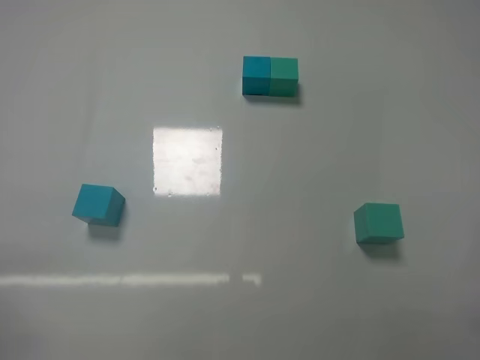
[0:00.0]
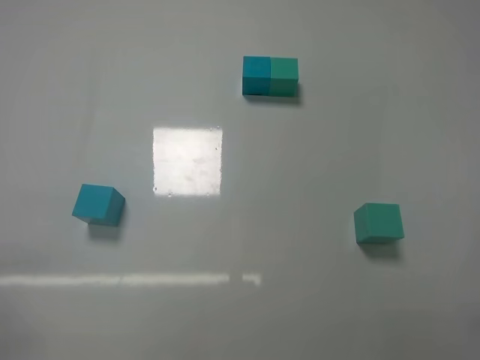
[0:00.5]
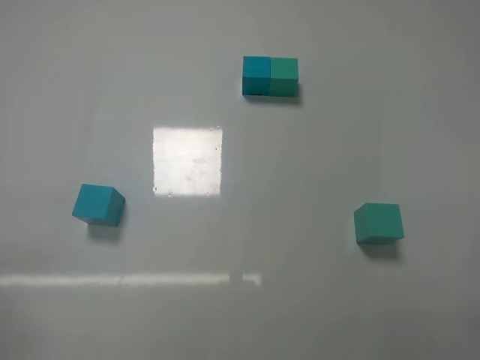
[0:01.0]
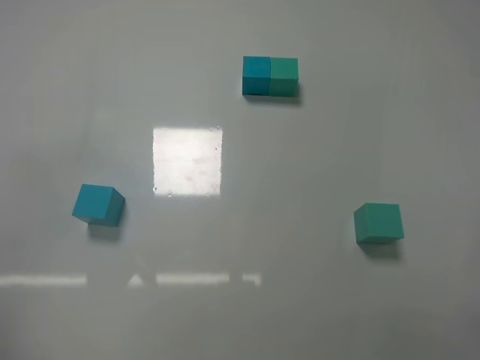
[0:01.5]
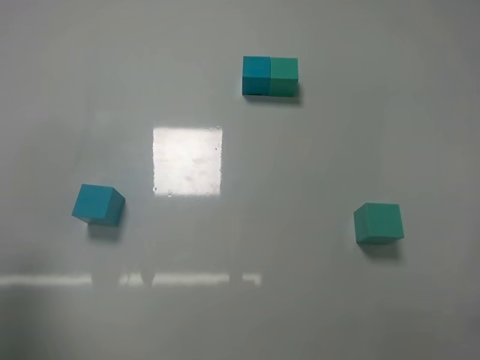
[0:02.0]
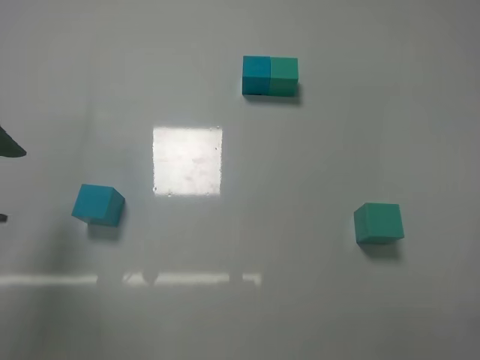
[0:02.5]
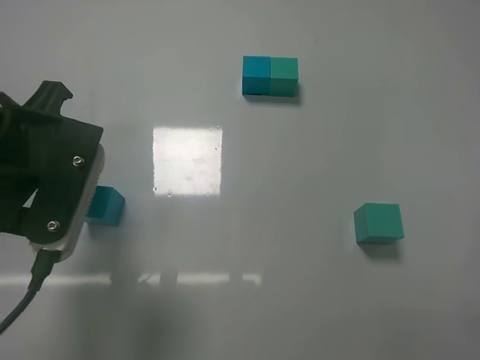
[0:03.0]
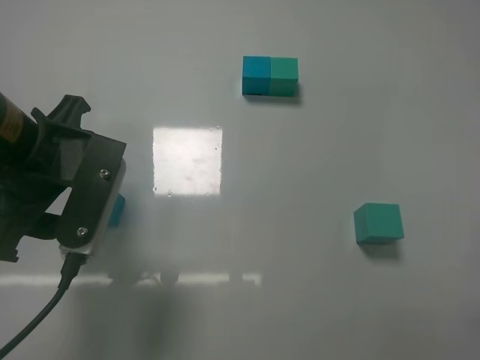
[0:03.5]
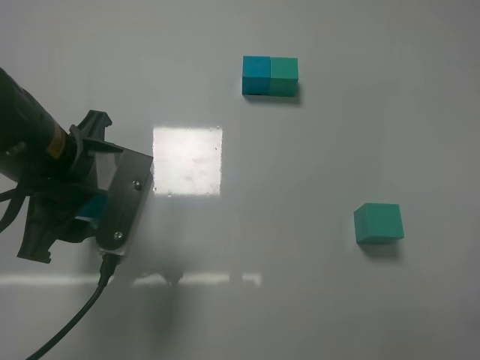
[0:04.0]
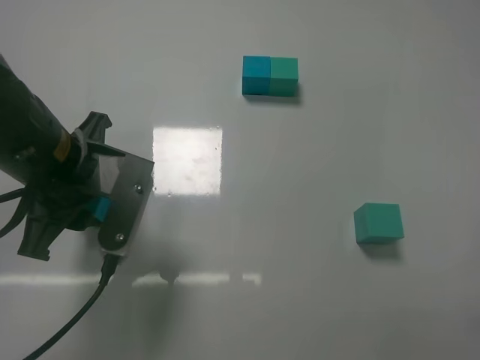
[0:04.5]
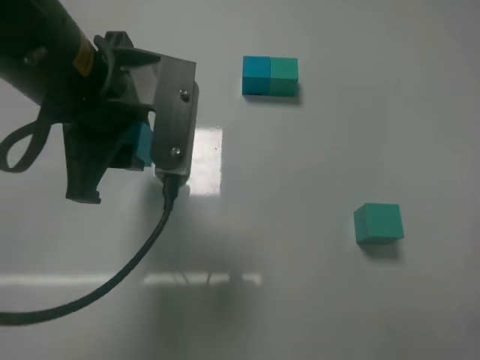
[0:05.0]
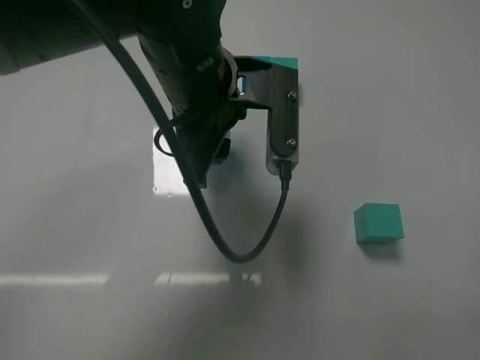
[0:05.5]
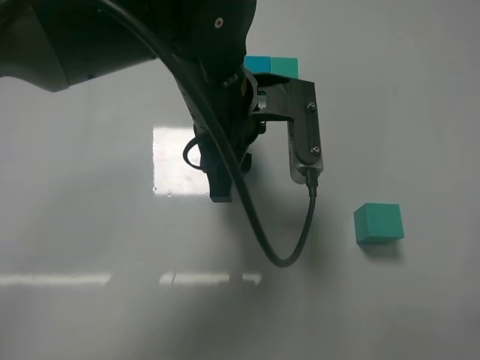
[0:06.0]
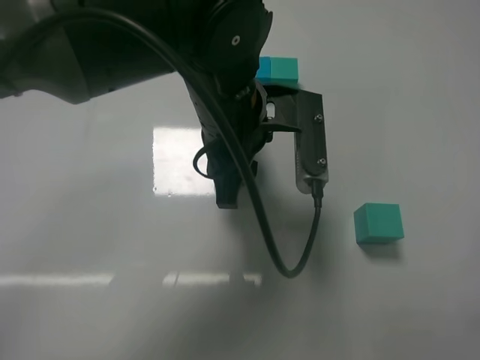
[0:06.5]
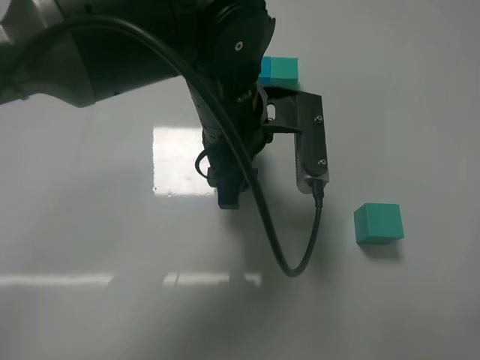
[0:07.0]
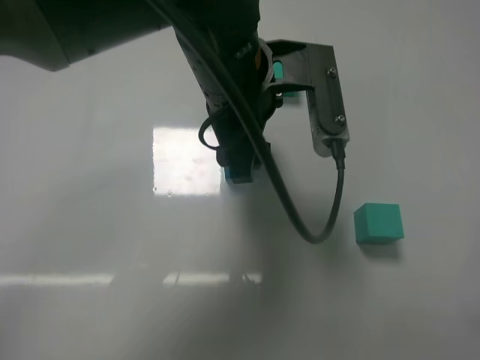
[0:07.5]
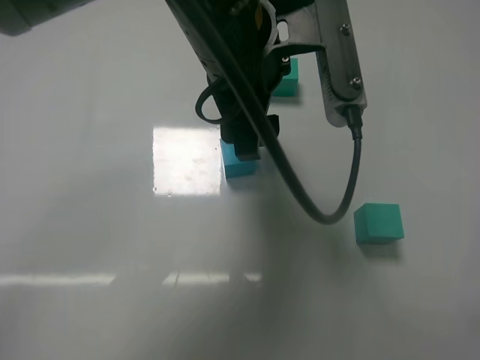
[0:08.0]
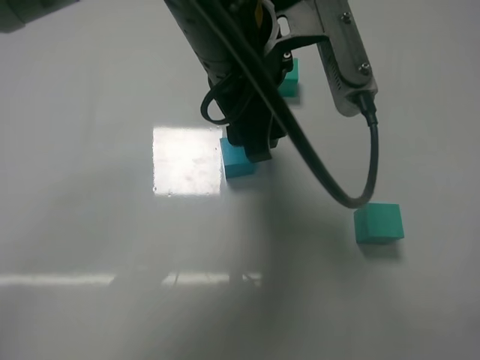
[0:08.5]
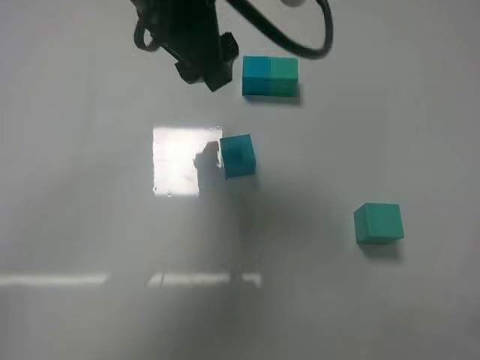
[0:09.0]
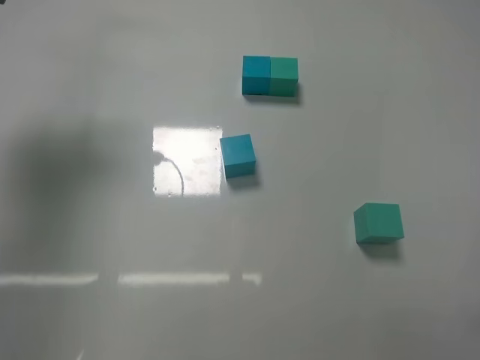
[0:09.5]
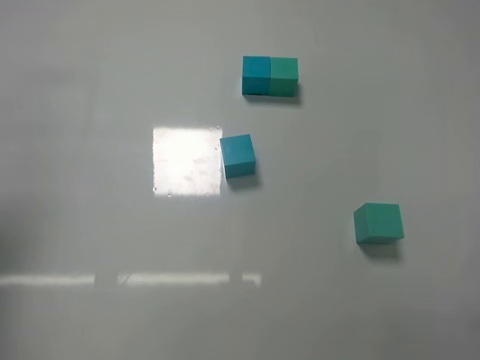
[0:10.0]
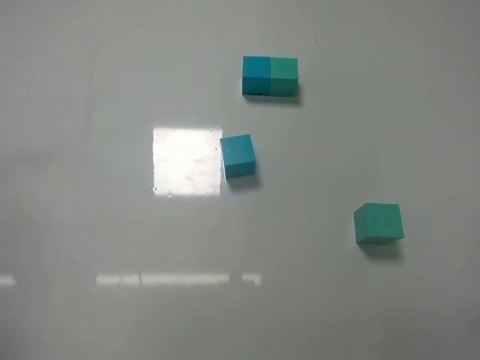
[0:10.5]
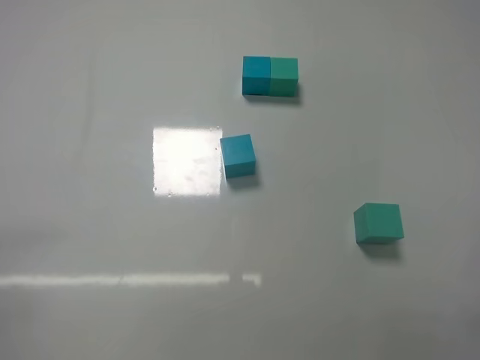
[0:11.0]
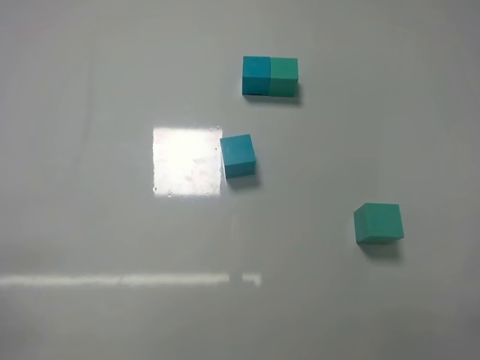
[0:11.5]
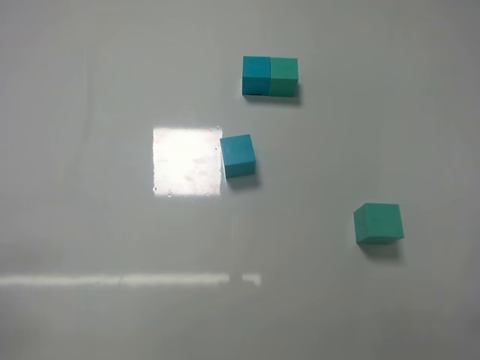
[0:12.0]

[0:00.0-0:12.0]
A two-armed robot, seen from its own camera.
Task of the whole recording: According to the building block template in front, assemble the scattered blocks together.
Step, 0:00.0 to 0:04.0: Grasp the blue block with left gripper.
Step, 0:04.5 to 0:07.0: Adjust the position of the cube with the left gripper.
0:00.0 to 0:02.0: The left gripper goes about 20 cm upward and forward.
0:02.0 to 0:04.0: The left gripper heads to the right, forward and downward, covering approximately 20 cm.
0:04.0 to 0:06.0: The left gripper travels to the right by roughly 15 cm, and closes its fingers.
0:06.0 to 0:08.0: The left gripper heads upward, covering about 5 cm, and opens up.
0:08.0 to 0:10.0: The left gripper goes approximately 35 cm to the left, and closes up.
0:10.0 to 0:12.0: The left gripper moves downward and backward, some 25 cm.

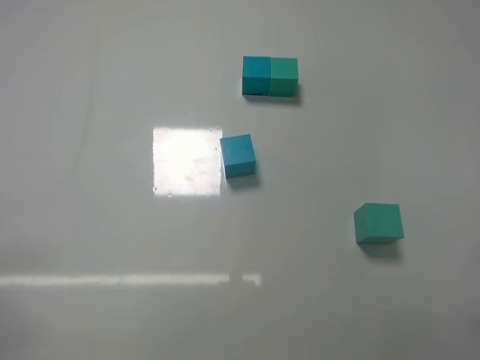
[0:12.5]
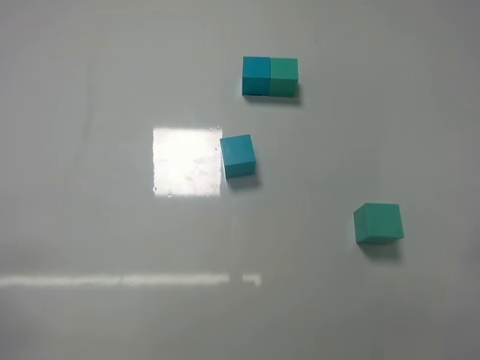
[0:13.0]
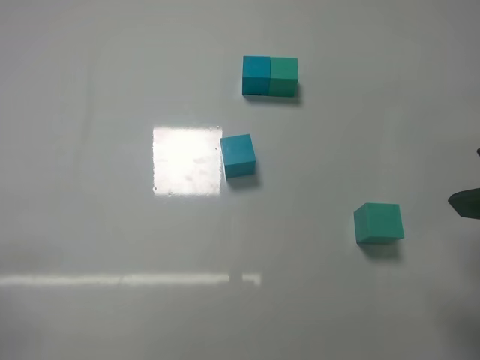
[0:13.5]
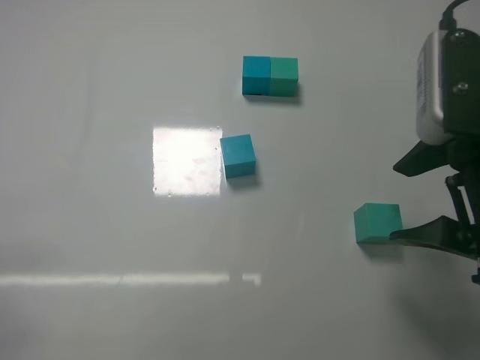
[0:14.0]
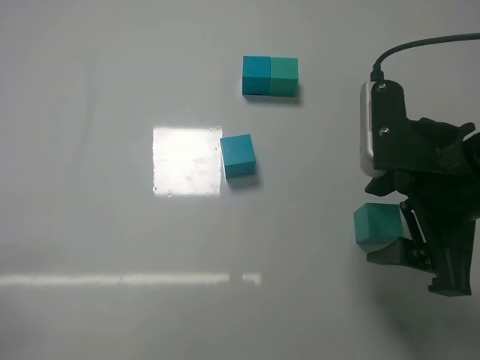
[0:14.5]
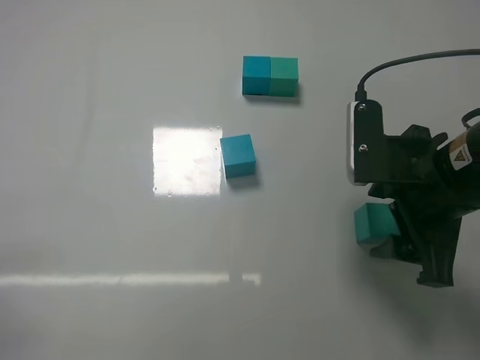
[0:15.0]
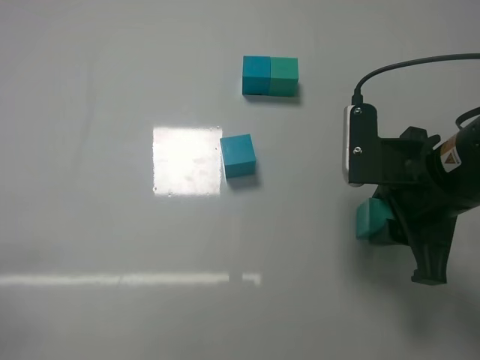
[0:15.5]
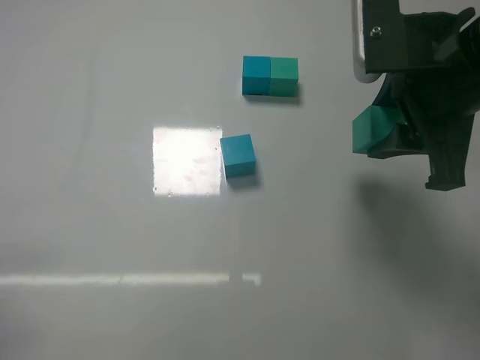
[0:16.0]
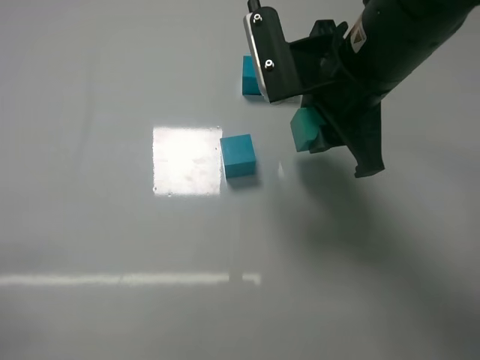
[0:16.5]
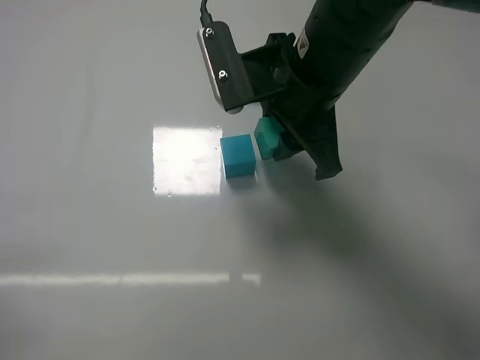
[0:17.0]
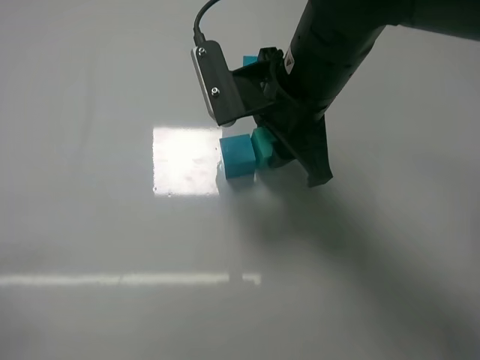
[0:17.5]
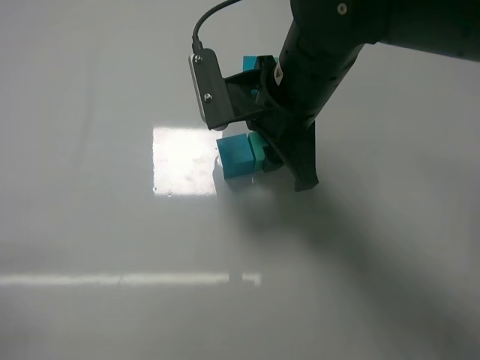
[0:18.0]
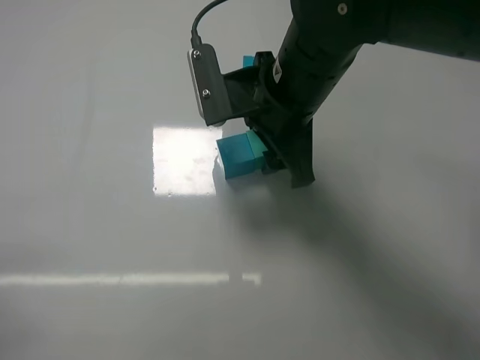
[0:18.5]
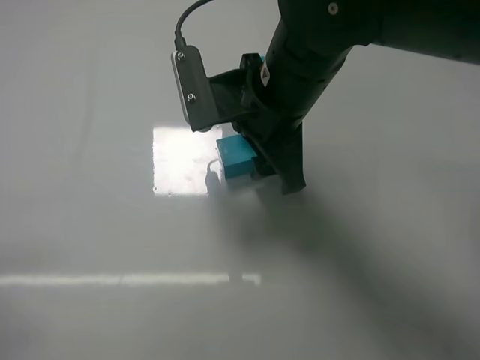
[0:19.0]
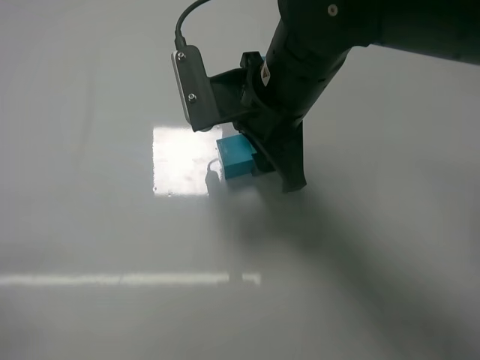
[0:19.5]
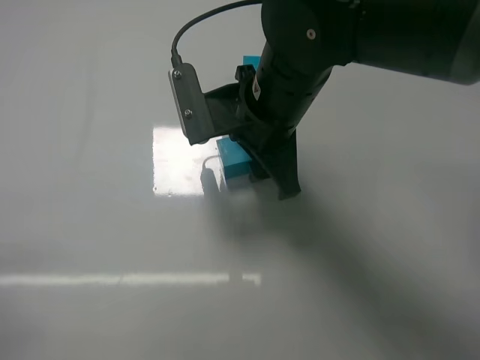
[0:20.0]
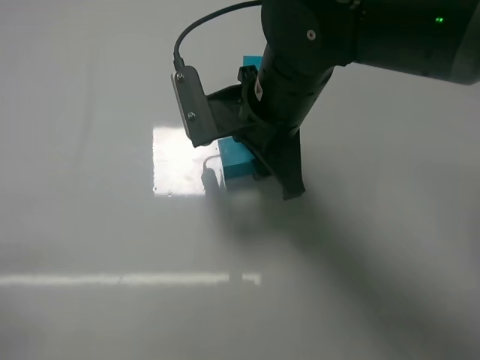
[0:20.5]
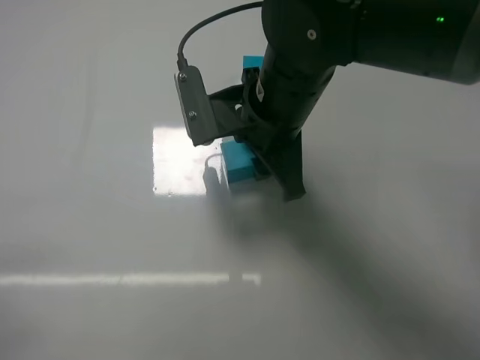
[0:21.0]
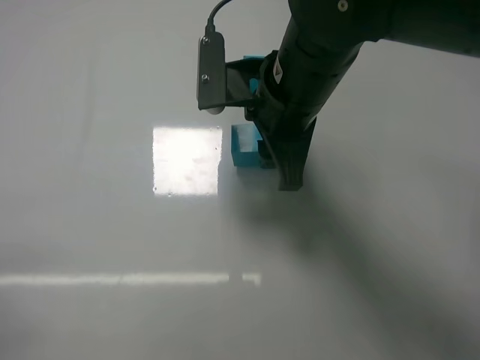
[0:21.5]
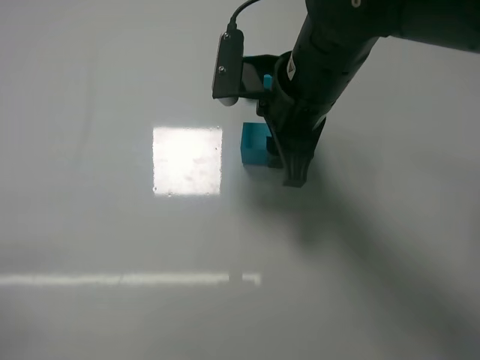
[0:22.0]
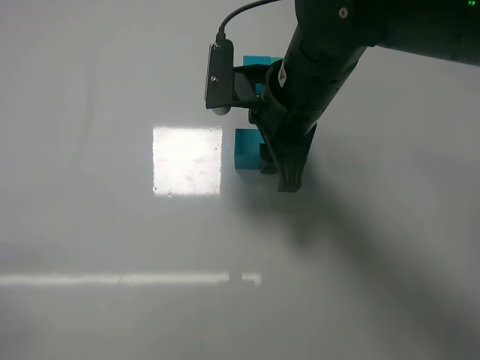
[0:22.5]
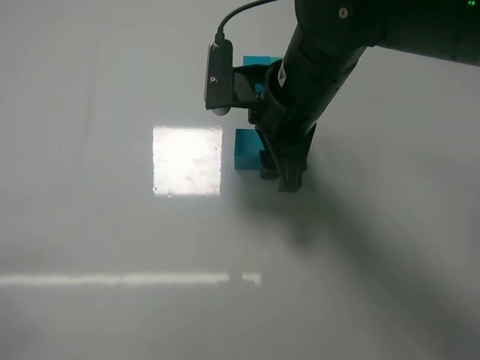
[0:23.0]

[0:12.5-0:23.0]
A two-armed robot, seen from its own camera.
Task of the whole recording: According to the building block template in front, assemble the scattered blocks together.
Step, 0:12.5 to 0:15.0: Grasp the green block with right gripper.
Step, 0:15.5 to 0:18.5: Put the green cube on the right of the blue cube with the right gripper.
0:12.5 to 0:14.5: The right gripper heads forward and to the left, covering approximately 25 cm, and opens up.
0:14.5 to 0:16.5: The right gripper shifts about 15 cm to the left, upward and forward, and closes its fingers.
0:16.5 to 0:19.0: The right gripper travels to the left by roughly 5 cm, and opens its fingers.
0:19.0 to 0:21.0: The right gripper closes up.
0:21.0 to 0:23.0: The right gripper opens up.

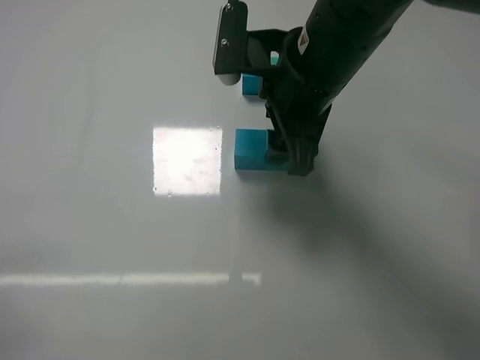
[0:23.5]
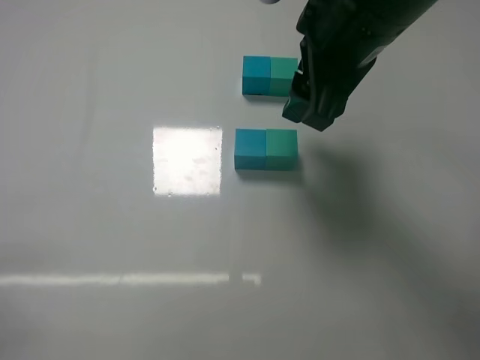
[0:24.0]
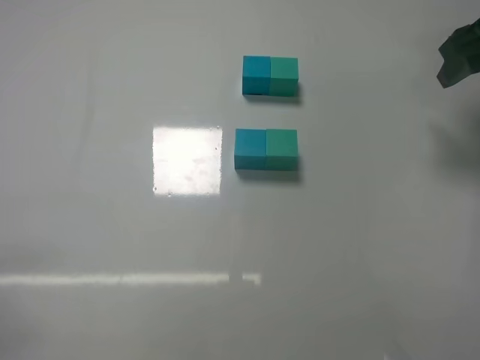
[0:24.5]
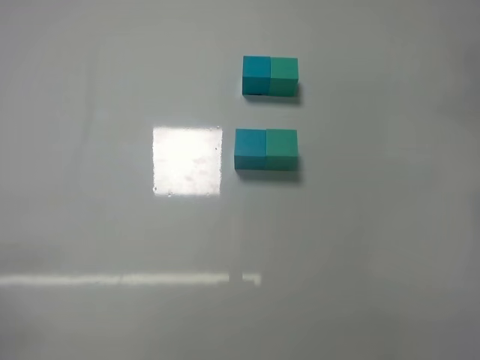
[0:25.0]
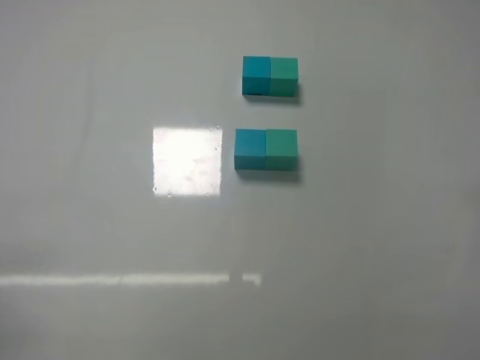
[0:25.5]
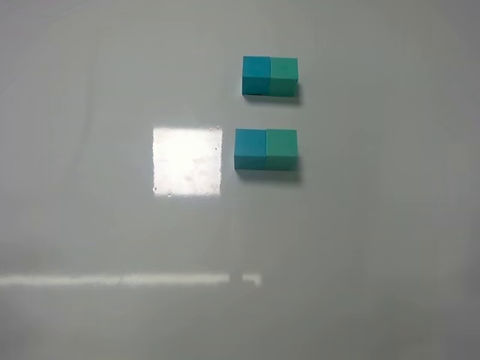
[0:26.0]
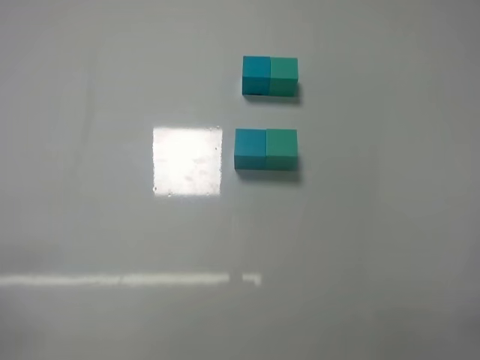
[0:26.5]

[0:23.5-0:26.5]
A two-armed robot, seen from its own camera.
Task of the whole recording: According to the building block template in front, assemble the scattered blocks together.
0:23.5 to 0:25.0: The right gripper heads to the right, covering about 25 cm.
